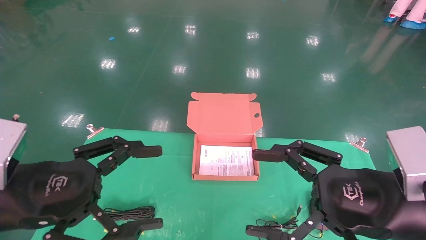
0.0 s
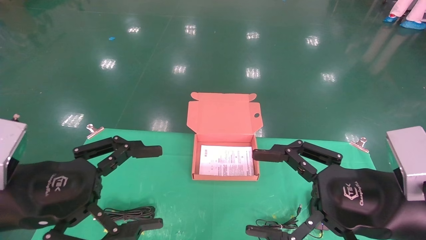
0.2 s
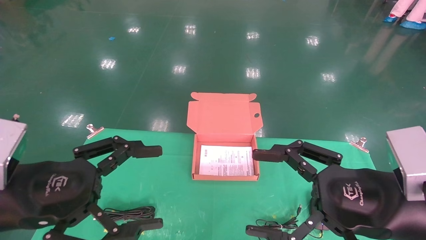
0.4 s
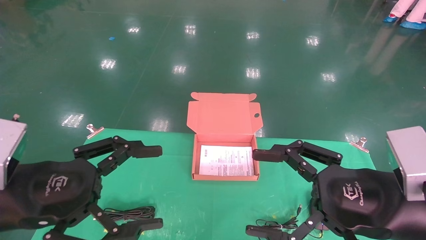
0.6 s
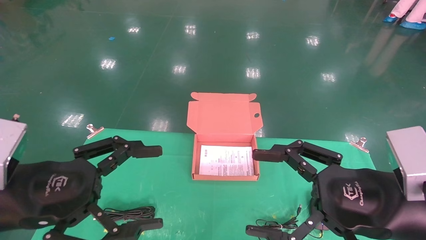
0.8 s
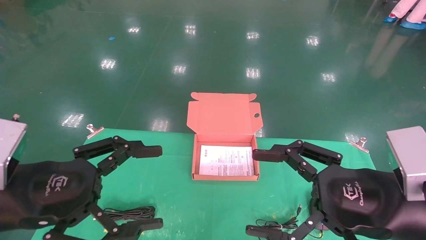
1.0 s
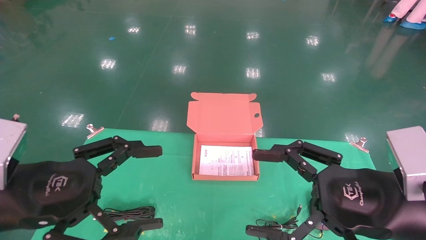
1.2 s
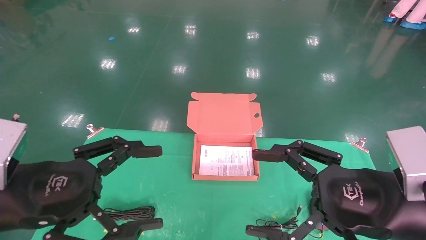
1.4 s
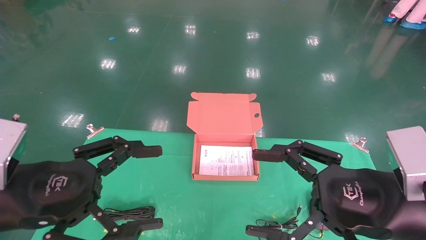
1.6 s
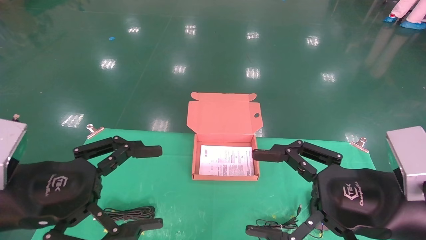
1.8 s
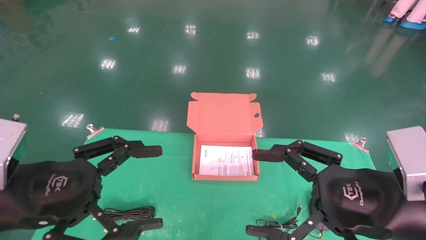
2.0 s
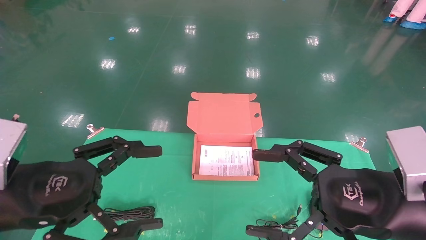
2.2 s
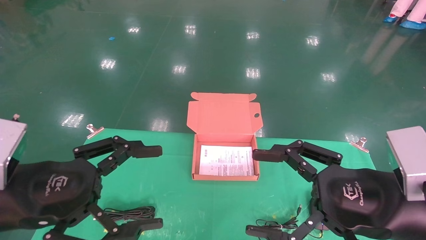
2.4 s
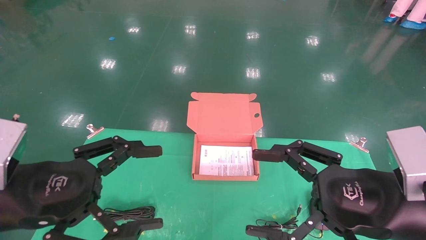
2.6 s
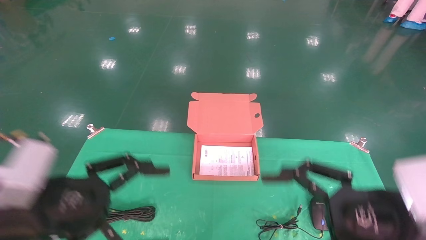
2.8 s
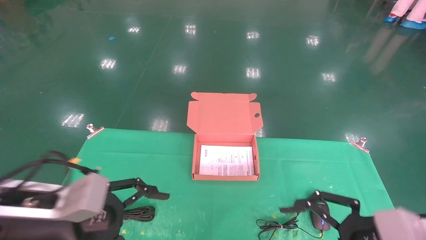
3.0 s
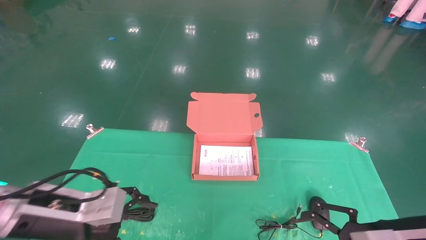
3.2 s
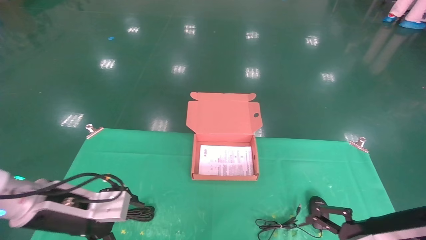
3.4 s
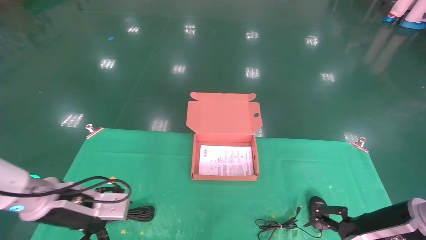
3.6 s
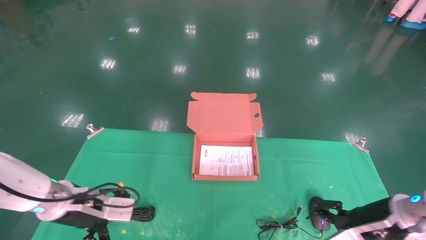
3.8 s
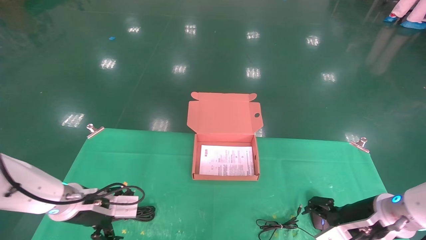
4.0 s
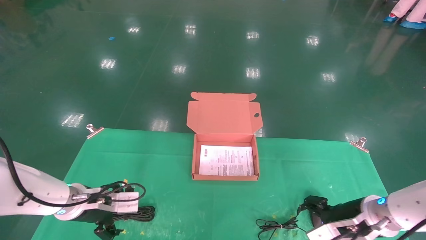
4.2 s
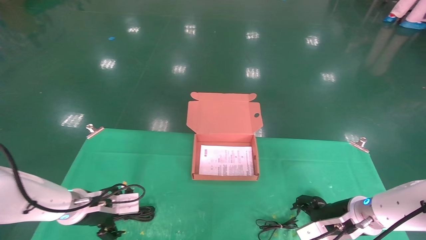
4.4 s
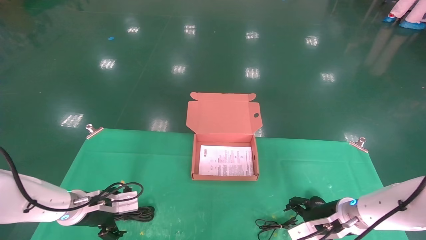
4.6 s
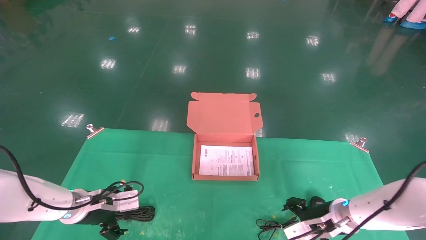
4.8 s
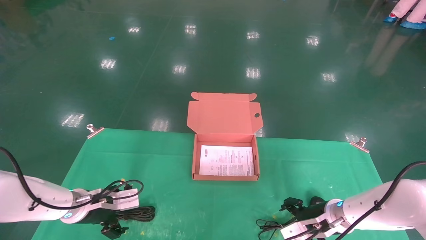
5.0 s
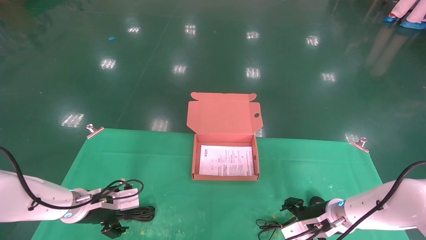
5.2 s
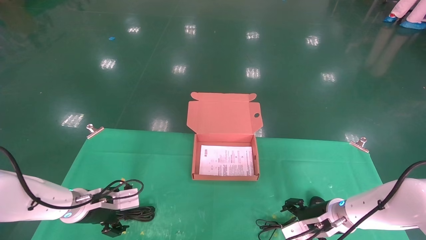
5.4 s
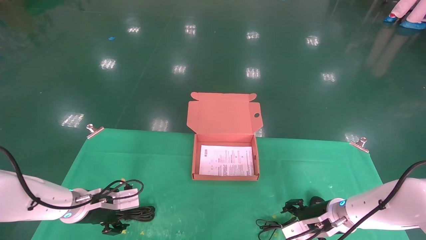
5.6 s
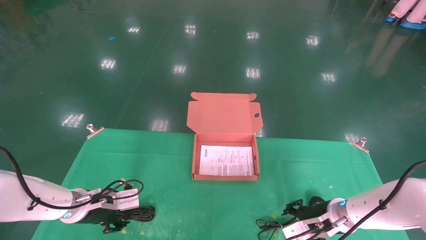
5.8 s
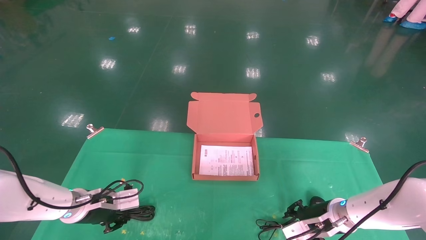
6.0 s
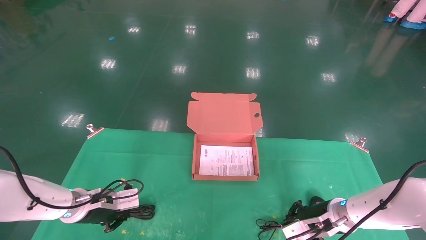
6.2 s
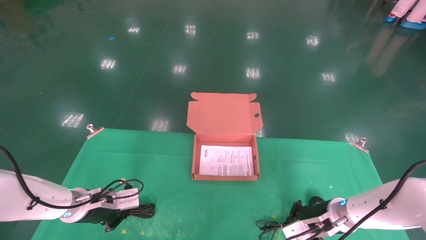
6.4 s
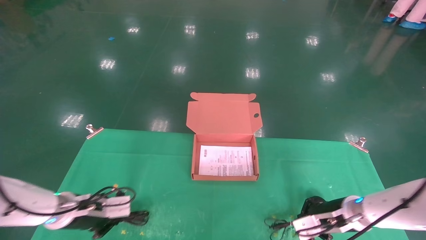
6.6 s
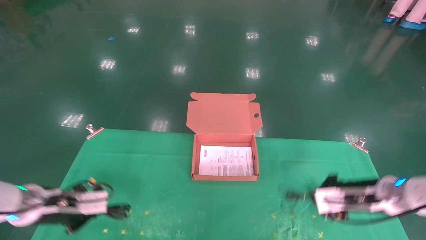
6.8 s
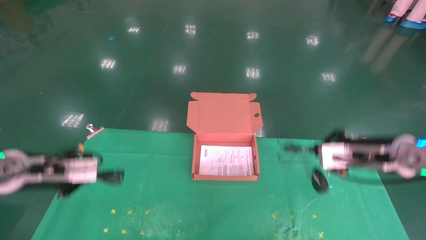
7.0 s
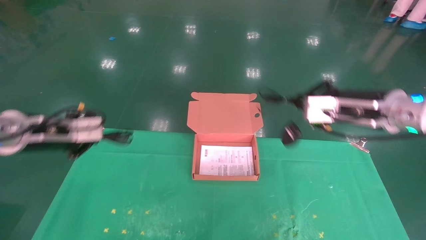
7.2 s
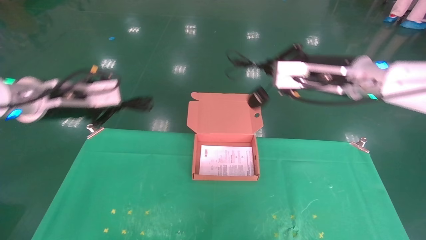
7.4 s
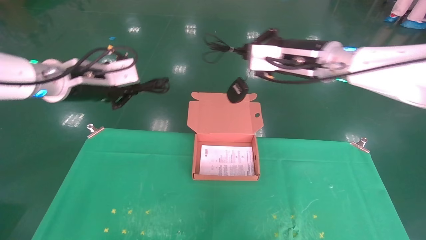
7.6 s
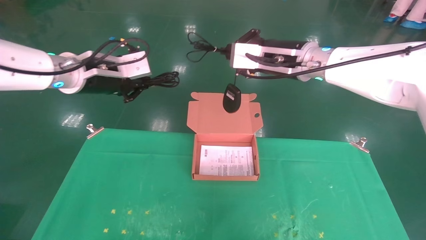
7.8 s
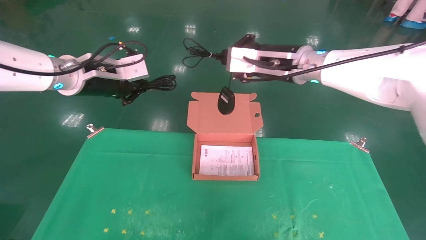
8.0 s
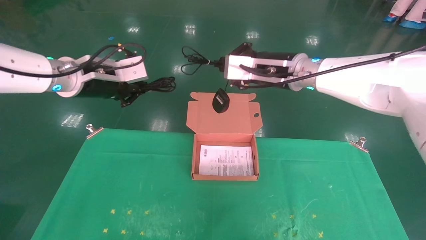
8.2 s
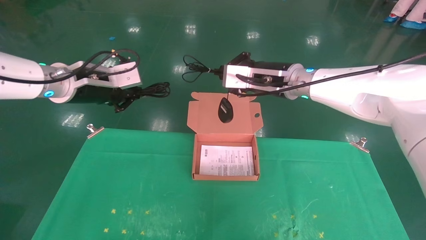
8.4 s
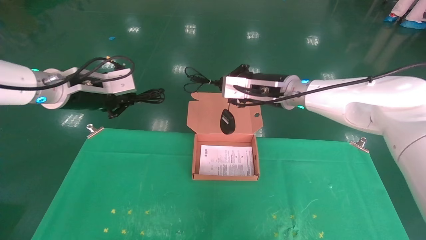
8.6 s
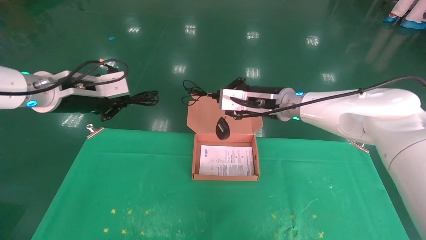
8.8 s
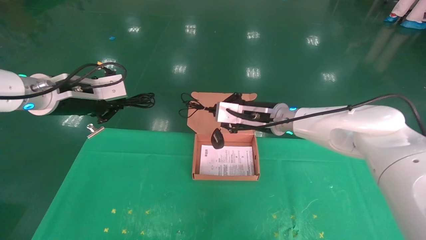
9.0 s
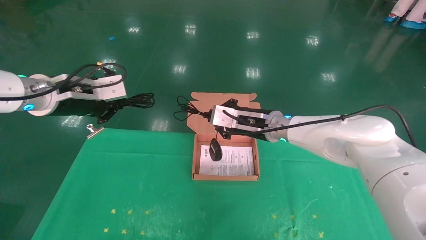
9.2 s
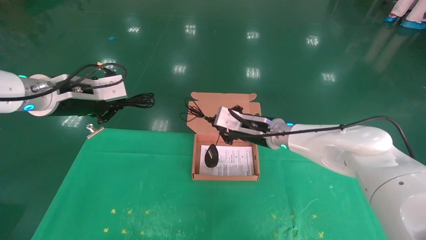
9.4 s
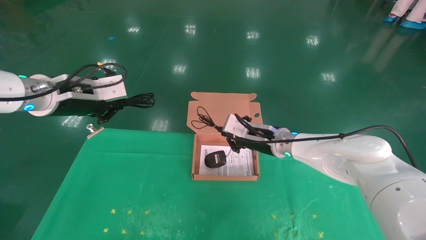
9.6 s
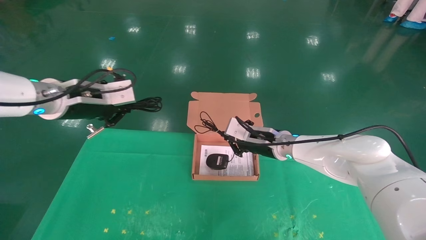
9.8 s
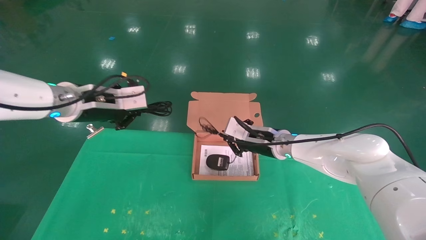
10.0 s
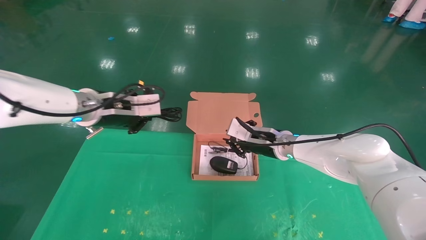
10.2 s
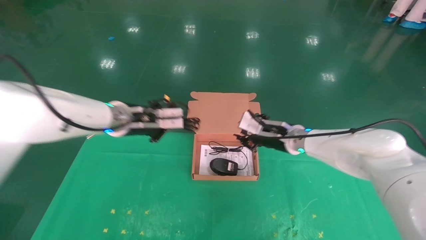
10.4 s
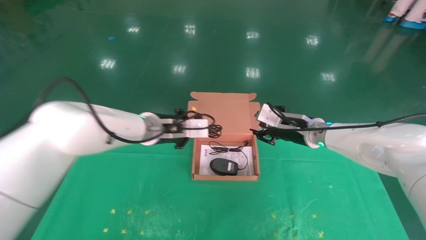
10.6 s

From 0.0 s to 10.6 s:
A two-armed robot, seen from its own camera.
Task of the whole recording: grasp data cable left put into box grasp mouse right put into box.
Step, from 2.8 s to 6.4 s: Grab and pick up both the mouse and power cord from the accessory packaging area at the same time.
From 0.0 s to 1.6 s: Both grippers stay about where they are.
From 1.6 s to 3.0 s: The left gripper changes place by some 5 cm. The right gripper changes place by some 5 cm.
From 3.0 s to 4.6 s: Both grippers travel together forward and downward, some 20 cm.
From 4.6 s to 6.0 s: The right gripper closes. The left gripper closes its fingers.
From 6.0 s to 7.6 s: The two grippers go some 30 cm upward. The right gripper closes its fingers.
From 7.6 s to 9.0 s: The right gripper travels downward, to the left and forward by approximately 15 cm.
From 9.0 s to 10.6 s: The right gripper heads to the right, covering about 10 cm, and opens up. Meanwhile the left gripper heads to the right, downward and forward, covering approximately 20 cm.

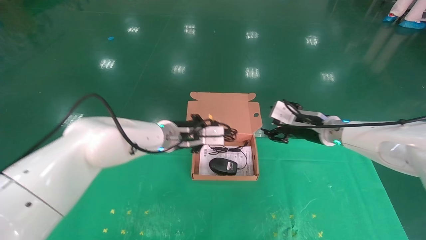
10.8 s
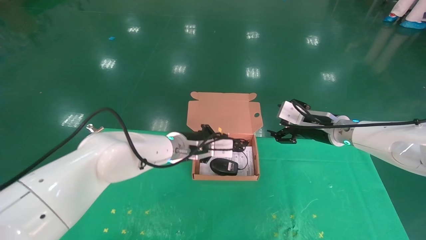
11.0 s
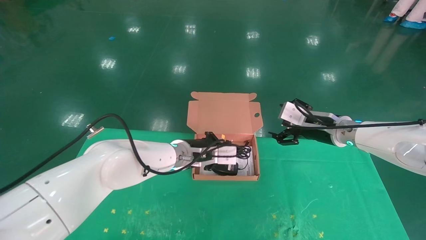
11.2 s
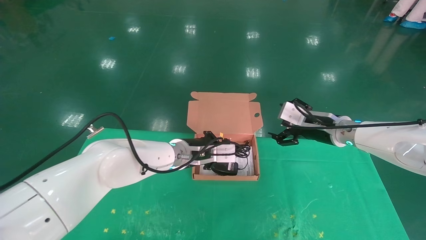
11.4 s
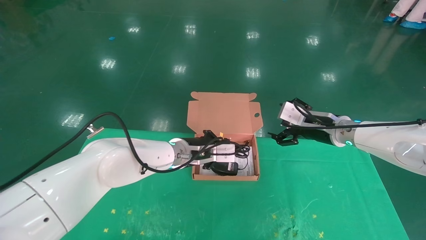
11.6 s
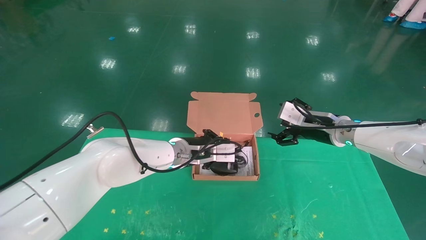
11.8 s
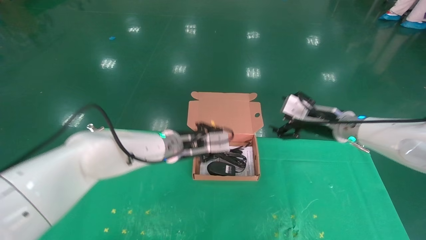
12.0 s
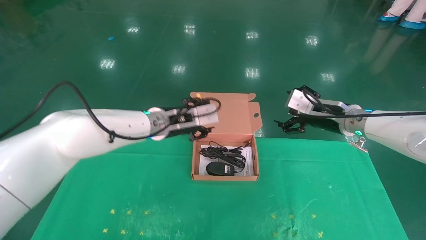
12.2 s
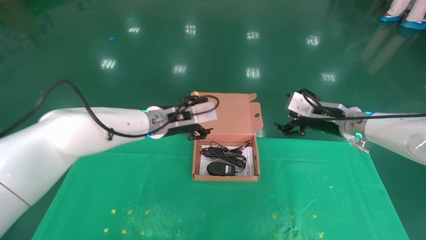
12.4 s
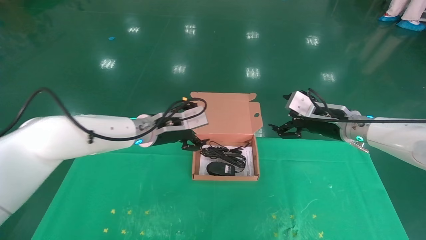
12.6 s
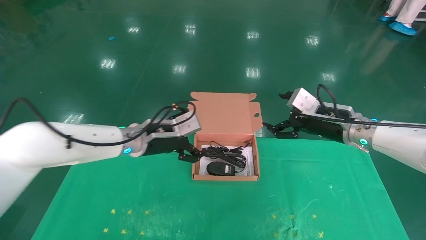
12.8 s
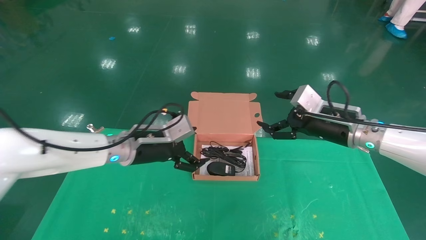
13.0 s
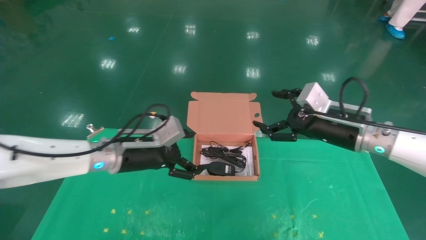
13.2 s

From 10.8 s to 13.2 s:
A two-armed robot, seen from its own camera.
Task of the whole recording: grasp data cable left put into box grasp mouse right put into box.
From 10.8 s to 12.0 s: The right gripper opens.
From 12.0 s to 13.2 s: The right gripper moves backward, roughly 5 cm, while the left gripper travels to the left and backward by approximately 10 cm, and opens.
